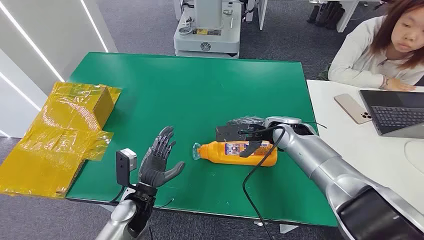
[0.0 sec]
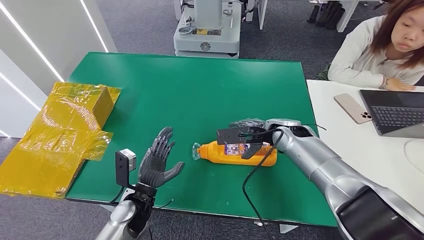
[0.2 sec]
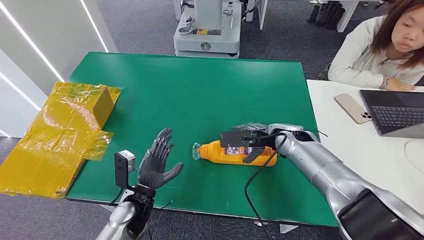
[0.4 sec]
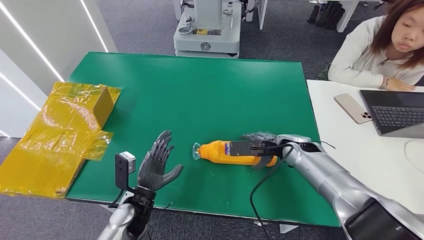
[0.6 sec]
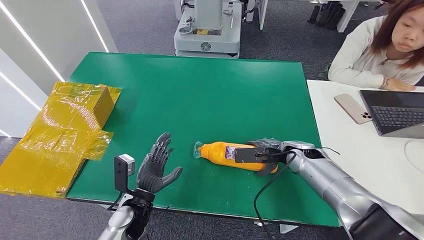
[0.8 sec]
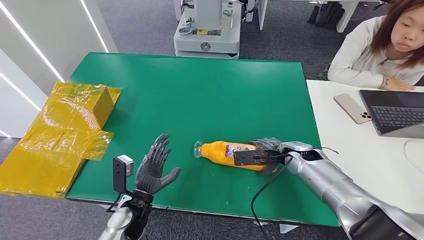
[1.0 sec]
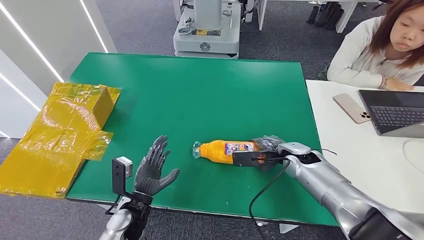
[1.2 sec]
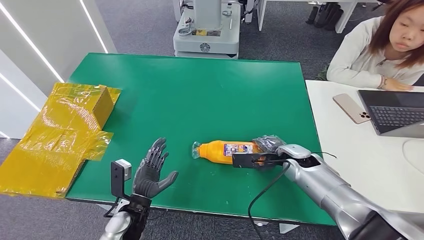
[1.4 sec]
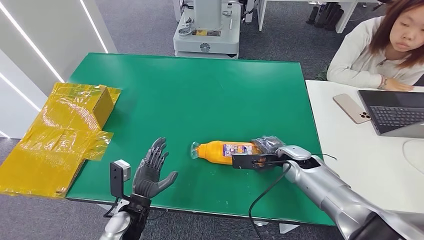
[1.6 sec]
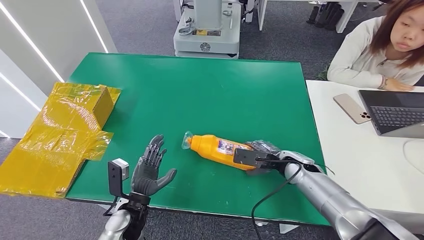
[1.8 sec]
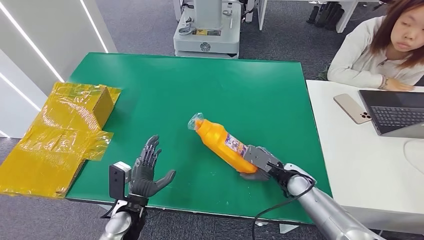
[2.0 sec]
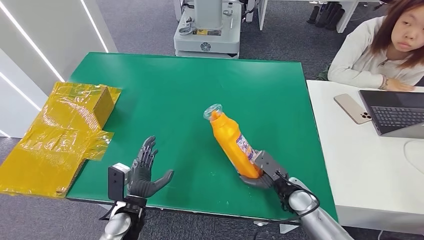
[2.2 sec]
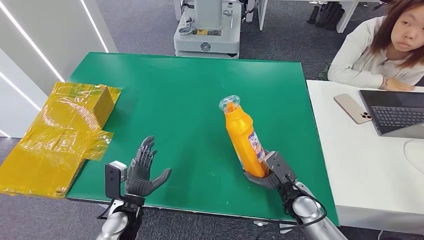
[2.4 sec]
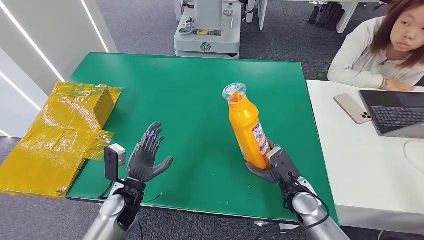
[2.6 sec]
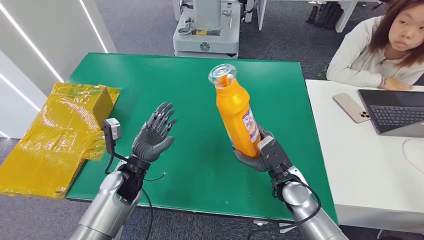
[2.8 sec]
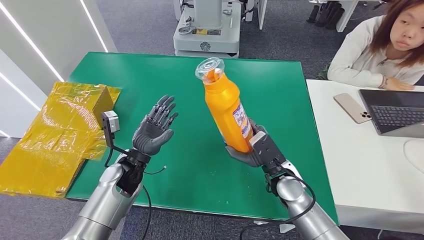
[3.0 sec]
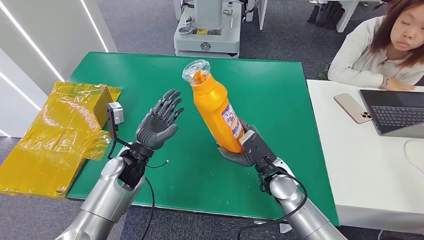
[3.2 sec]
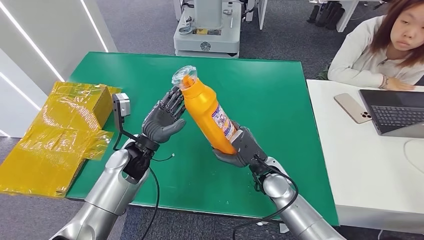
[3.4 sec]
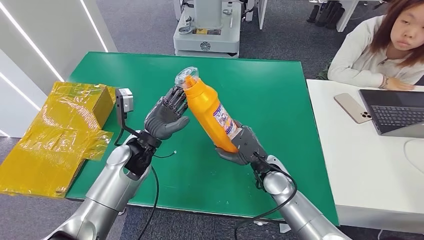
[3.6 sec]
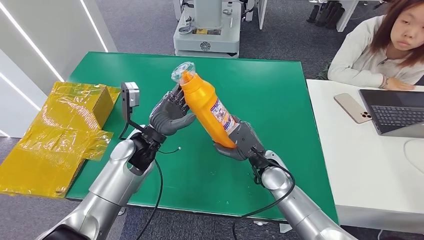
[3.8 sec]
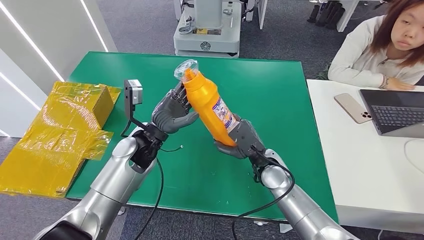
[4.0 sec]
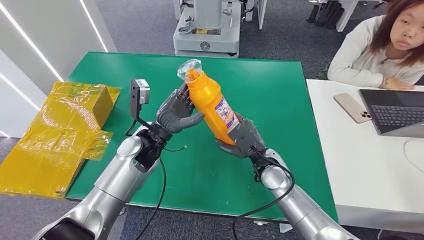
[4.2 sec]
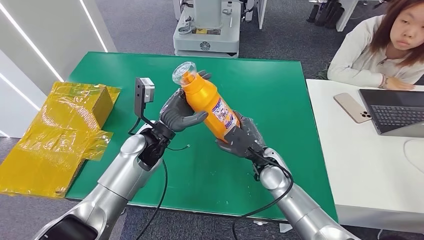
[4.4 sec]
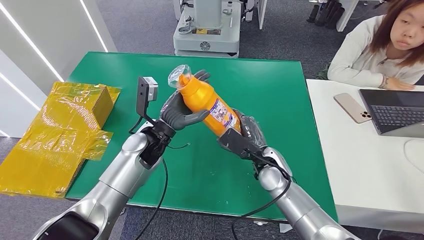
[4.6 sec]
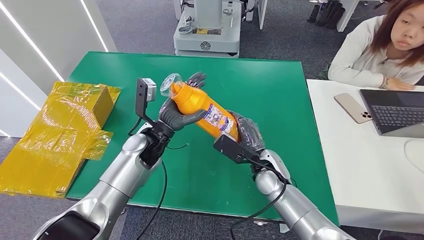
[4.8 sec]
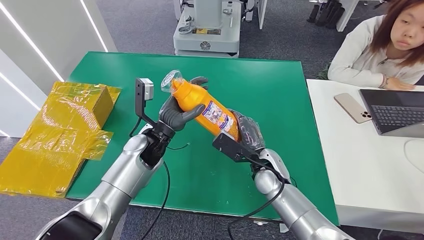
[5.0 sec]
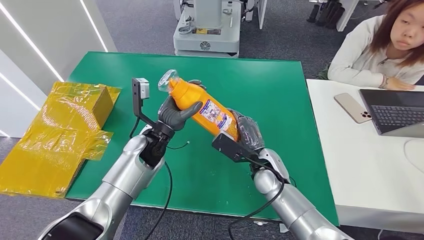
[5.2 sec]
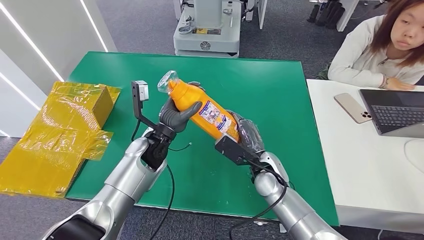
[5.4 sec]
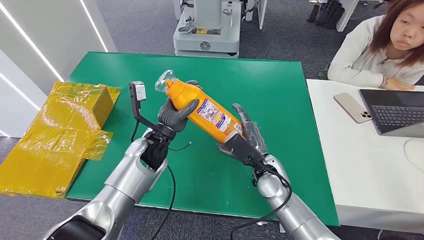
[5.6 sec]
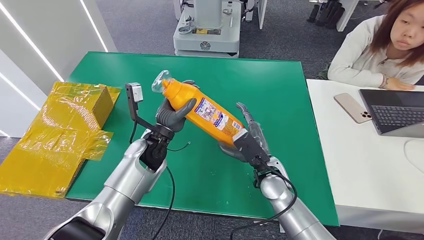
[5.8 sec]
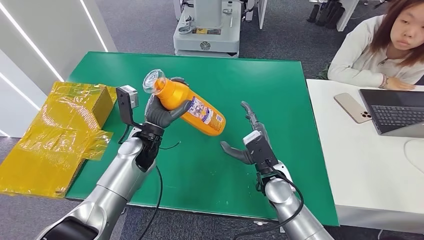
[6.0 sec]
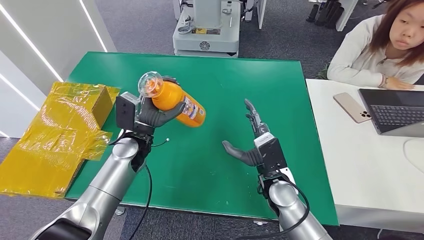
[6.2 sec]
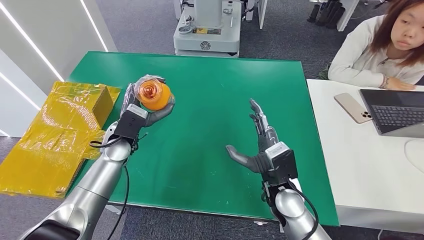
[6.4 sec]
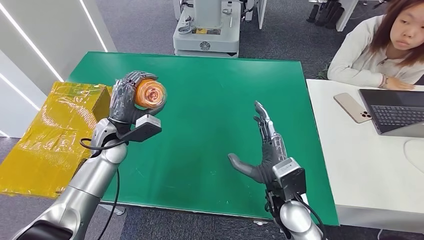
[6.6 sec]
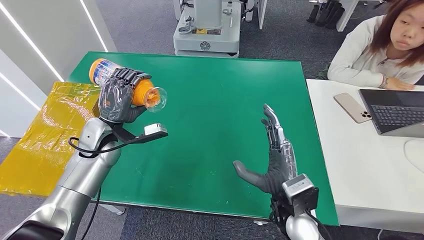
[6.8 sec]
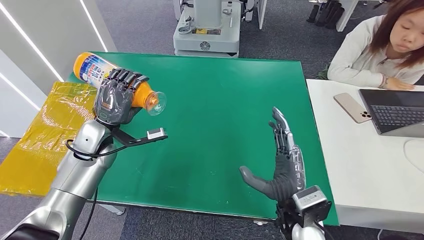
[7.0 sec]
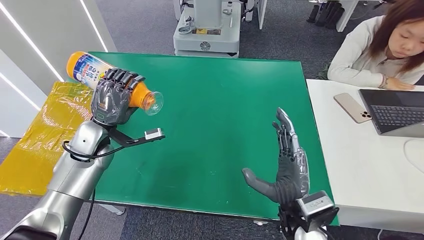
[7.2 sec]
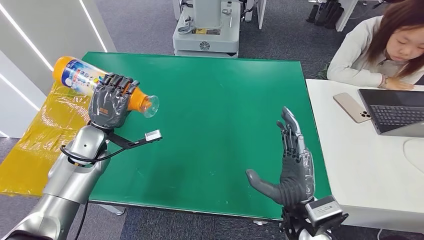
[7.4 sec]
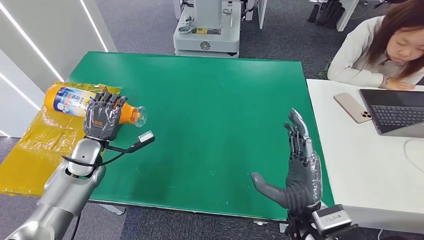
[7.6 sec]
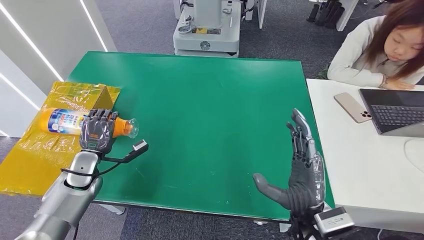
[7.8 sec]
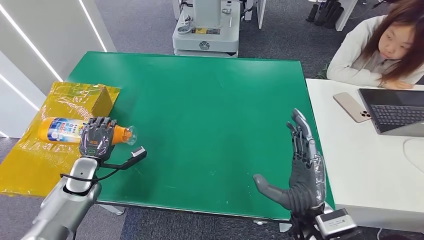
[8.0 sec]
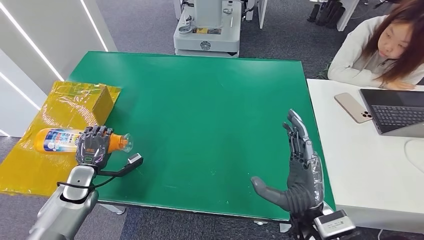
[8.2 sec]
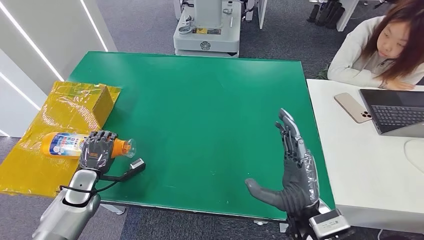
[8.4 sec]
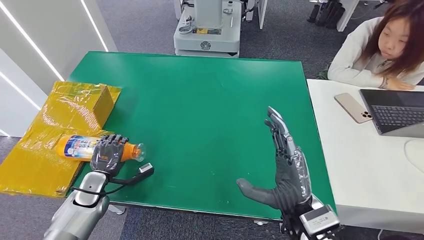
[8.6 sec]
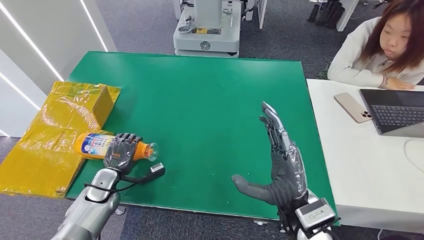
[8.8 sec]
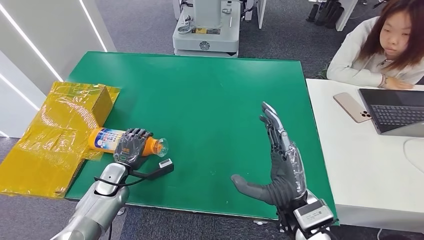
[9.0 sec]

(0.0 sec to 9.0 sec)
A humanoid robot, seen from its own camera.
Step, 0.0 sec - 3.8 sec: Pick up the bottle from the table.
Step, 4.0 sec - 9.0 sec: Turn the bottle to the front side.
1.6 sec - 3.0 sec: The left hand heads forward and upward, covering approximately 10 cm. Meanwhile the right hand heads backward, covering some 5 cm.
3.0 sec - 4.4 sec: The left hand goes approximately 10 cm upward and to the right.
7.6 sec - 9.0 sec: The left hand goes about 10 cm downward.
